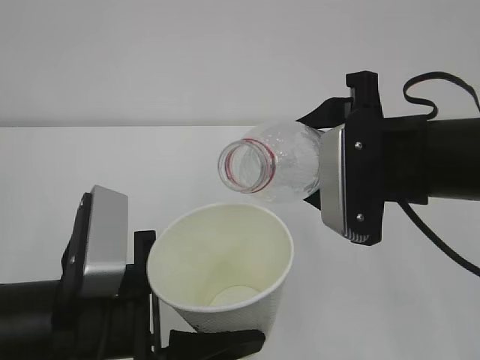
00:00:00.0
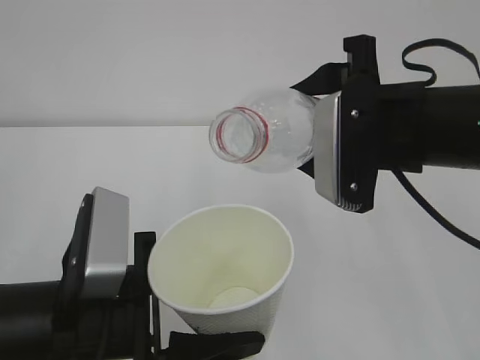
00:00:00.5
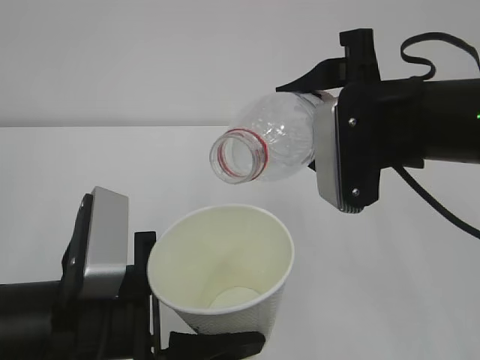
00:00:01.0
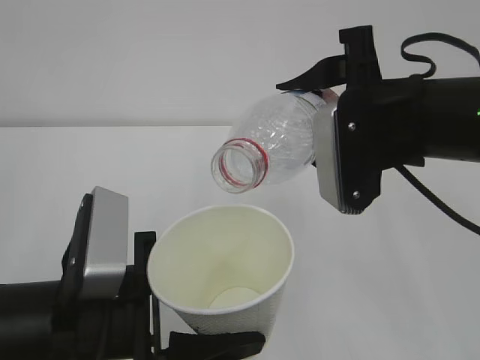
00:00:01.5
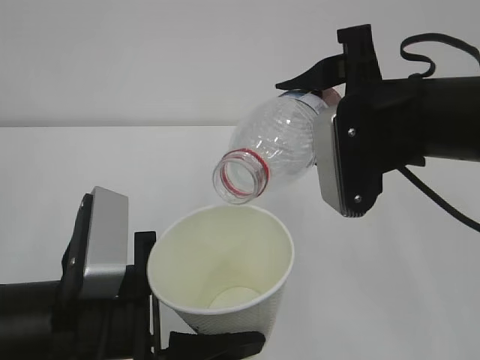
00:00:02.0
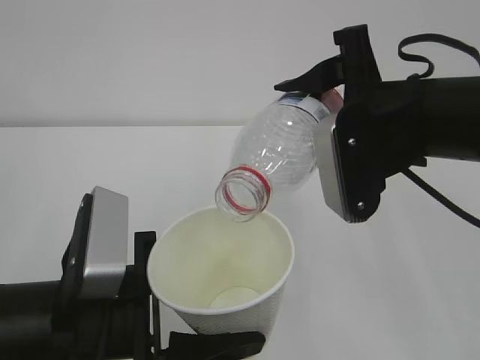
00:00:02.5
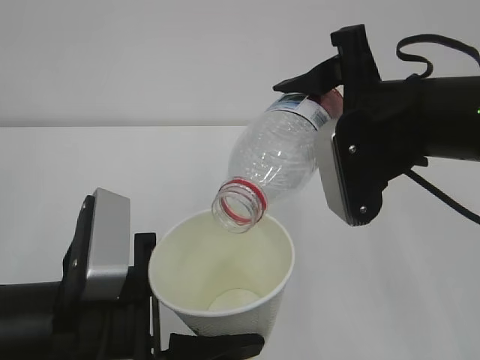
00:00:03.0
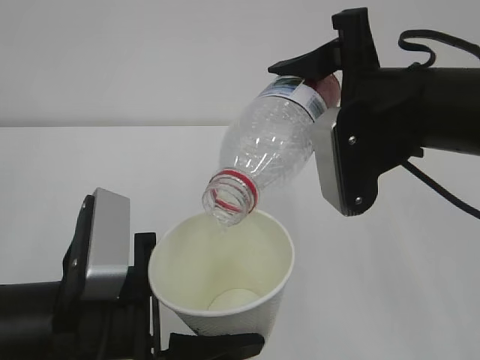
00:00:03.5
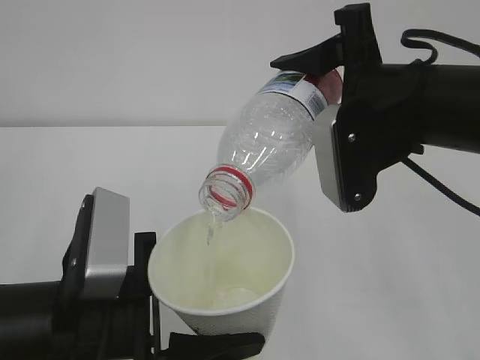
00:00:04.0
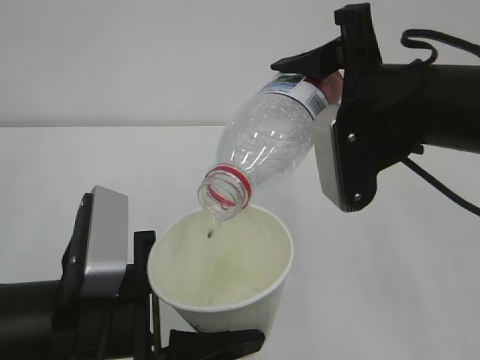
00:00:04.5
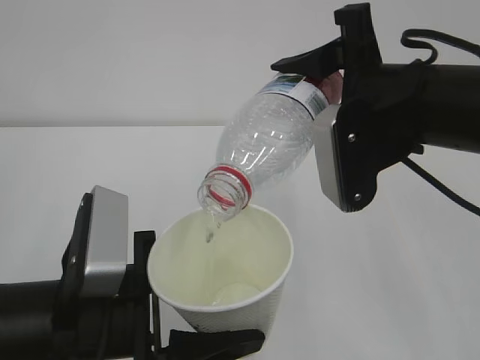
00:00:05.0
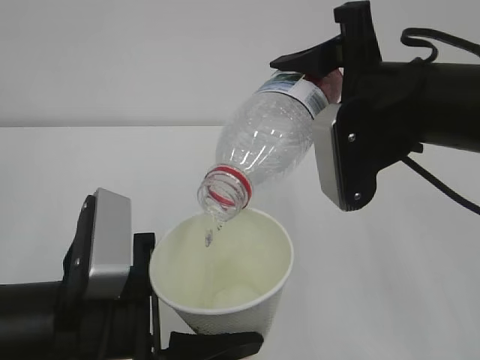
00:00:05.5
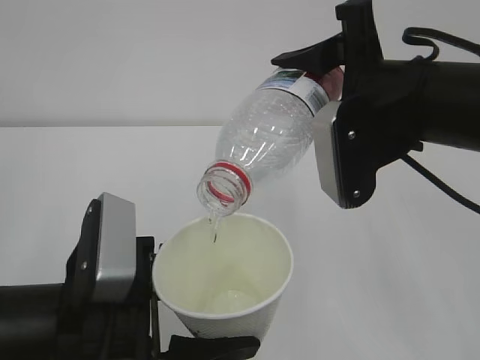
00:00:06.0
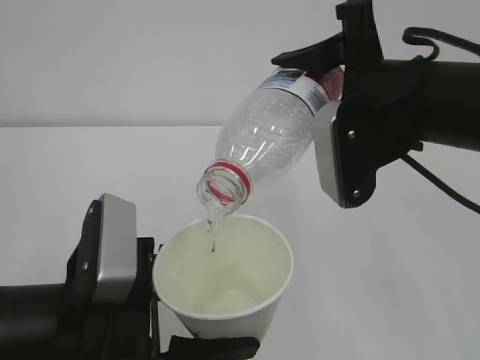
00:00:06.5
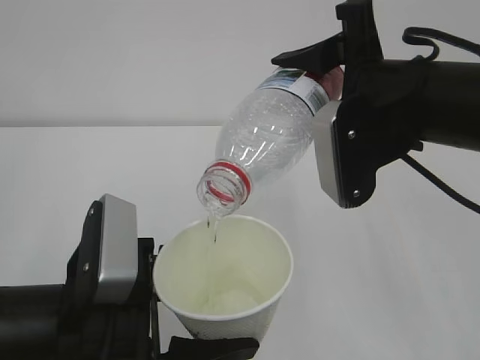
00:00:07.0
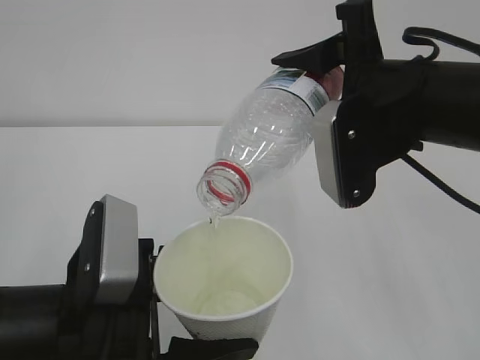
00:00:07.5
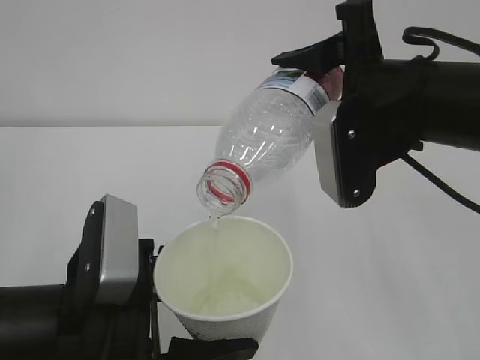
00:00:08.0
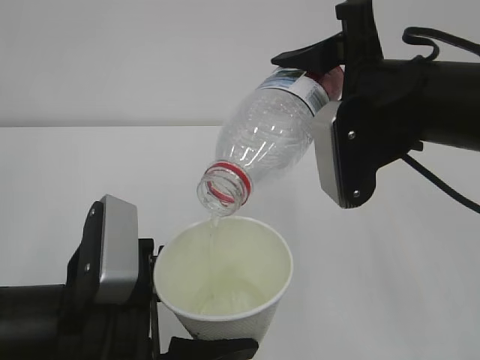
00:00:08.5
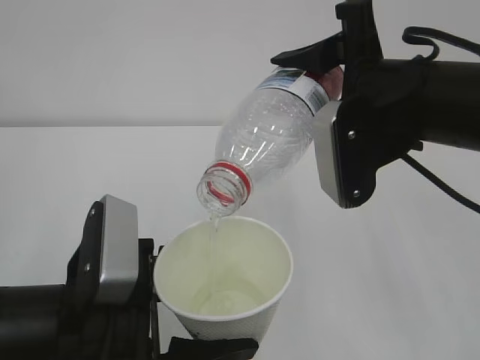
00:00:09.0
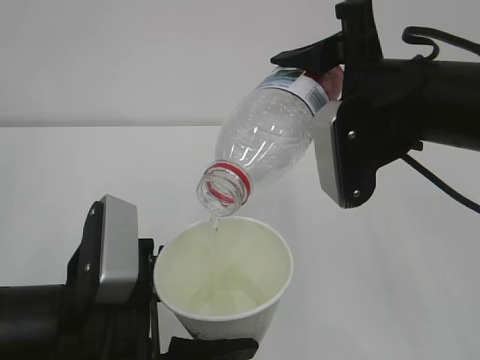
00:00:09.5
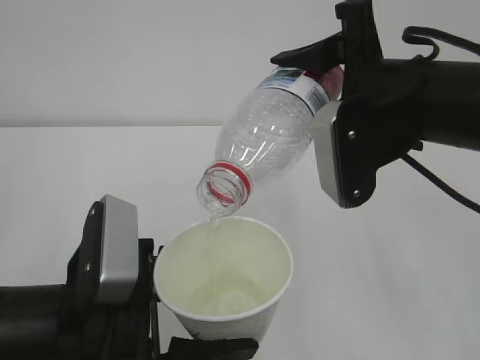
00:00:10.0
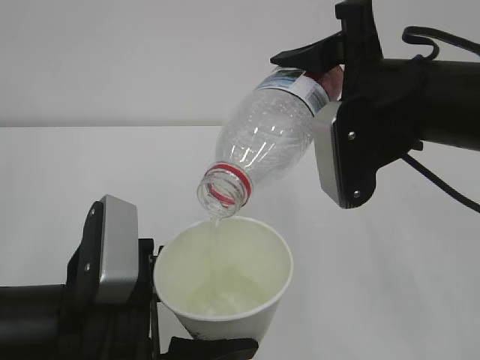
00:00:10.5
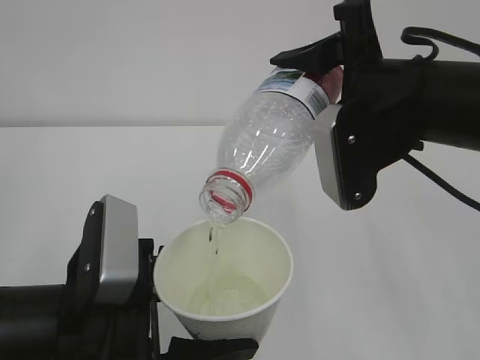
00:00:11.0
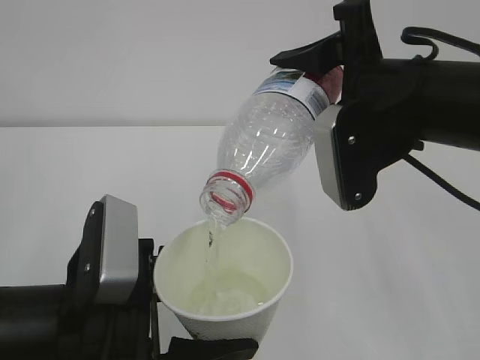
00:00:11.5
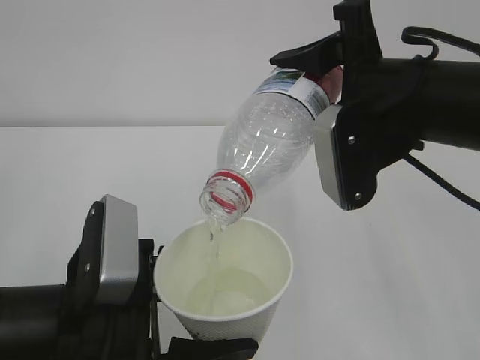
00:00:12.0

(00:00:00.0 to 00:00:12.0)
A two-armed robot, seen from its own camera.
00:00:00.0 - 00:00:02.0: The grippers move only a little.
00:00:02.0 - 00:00:04.0: There are only small adjustments of the grippers.
00:00:04.0 - 00:00:06.0: The right gripper closes.
00:00:06.0 - 00:00:12.0: Neither gripper changes place.

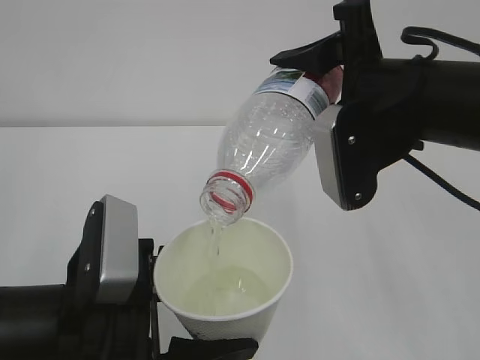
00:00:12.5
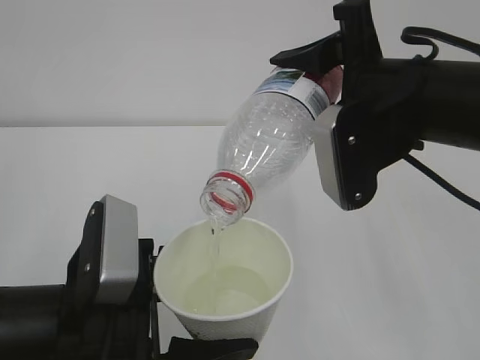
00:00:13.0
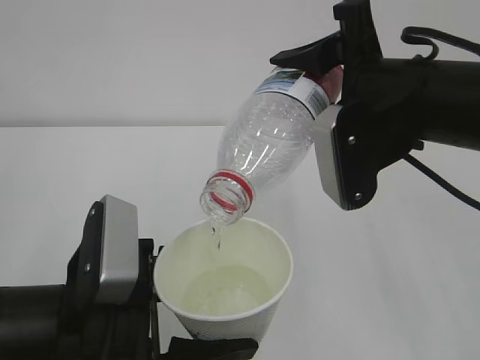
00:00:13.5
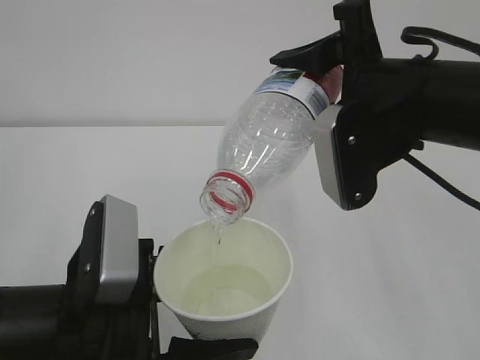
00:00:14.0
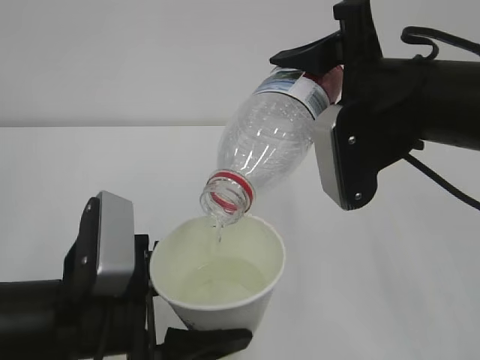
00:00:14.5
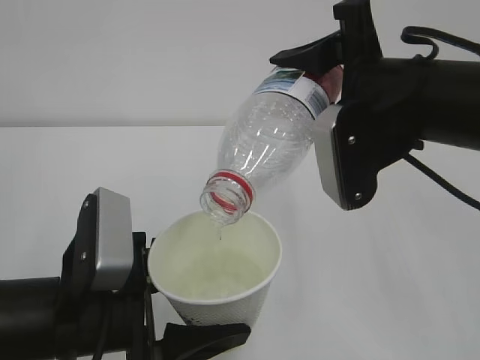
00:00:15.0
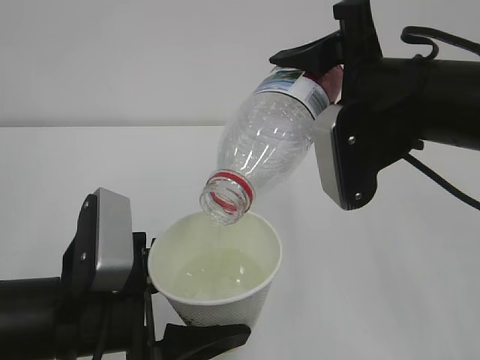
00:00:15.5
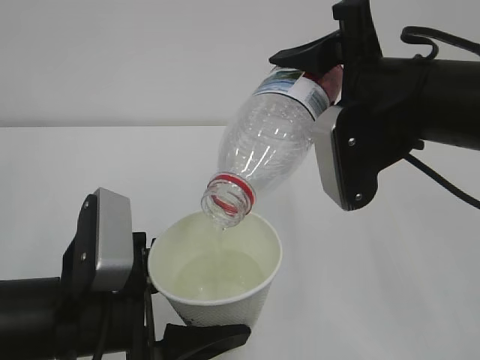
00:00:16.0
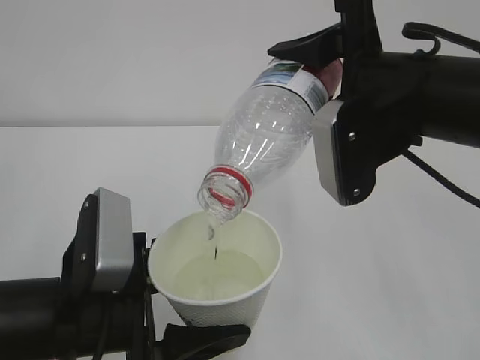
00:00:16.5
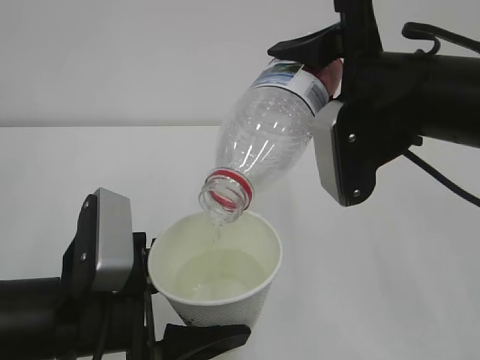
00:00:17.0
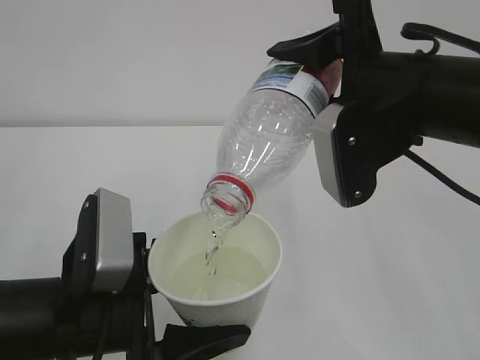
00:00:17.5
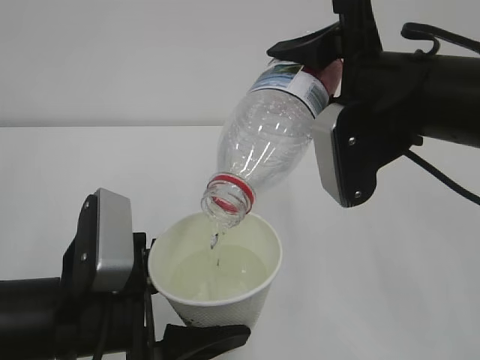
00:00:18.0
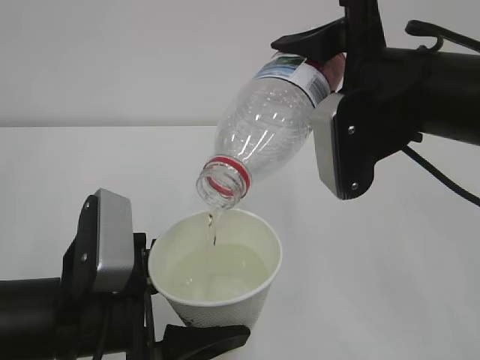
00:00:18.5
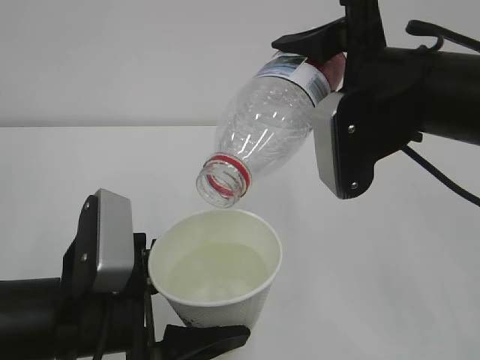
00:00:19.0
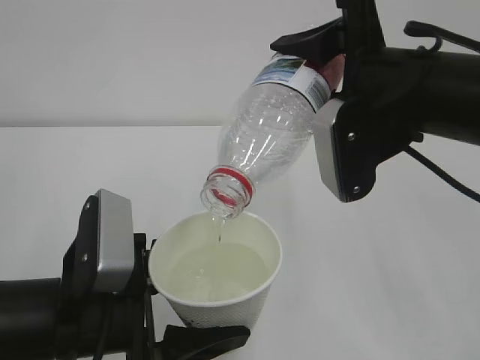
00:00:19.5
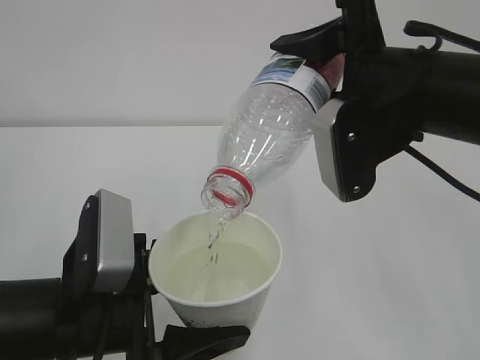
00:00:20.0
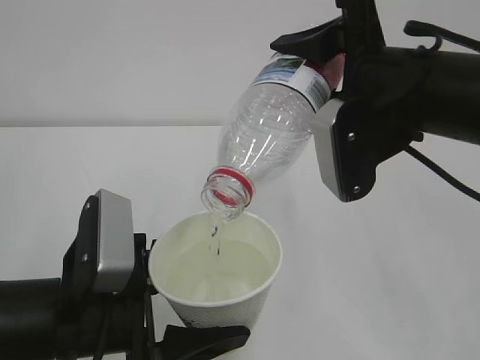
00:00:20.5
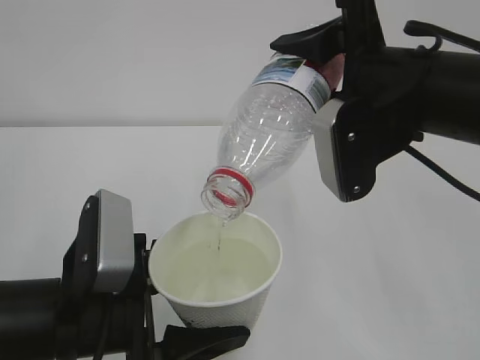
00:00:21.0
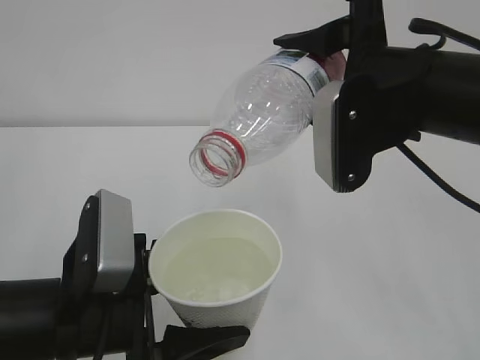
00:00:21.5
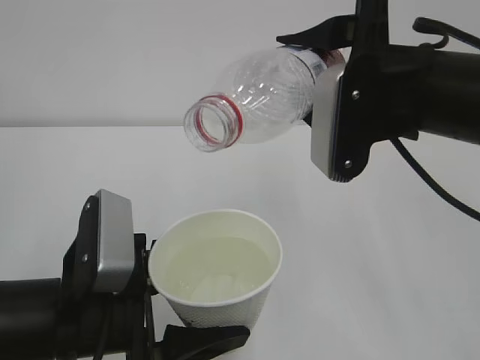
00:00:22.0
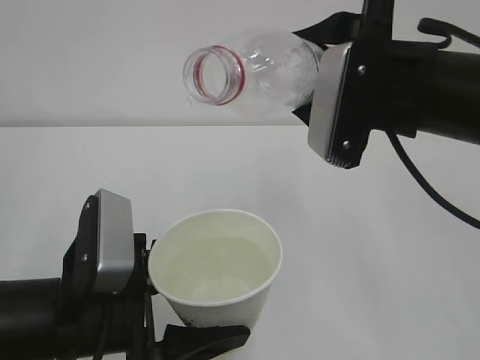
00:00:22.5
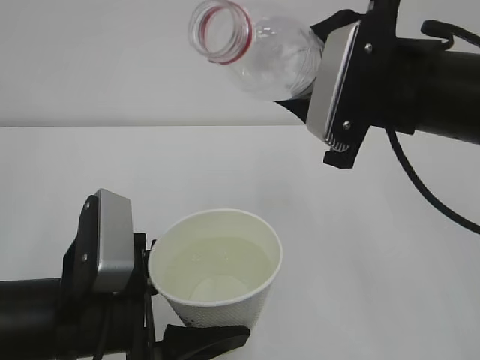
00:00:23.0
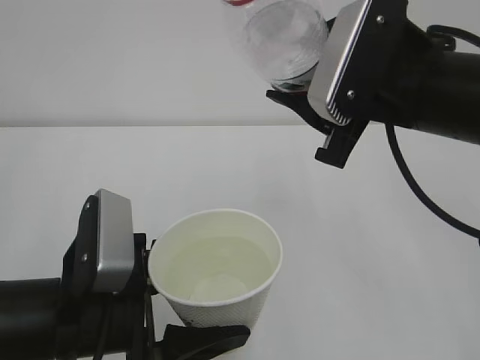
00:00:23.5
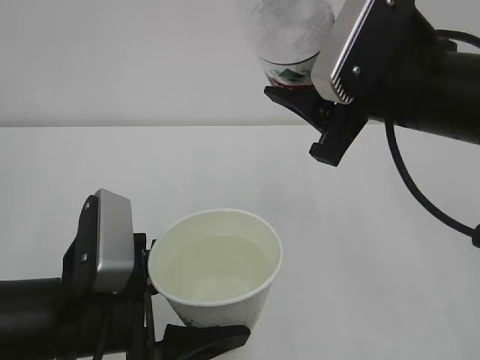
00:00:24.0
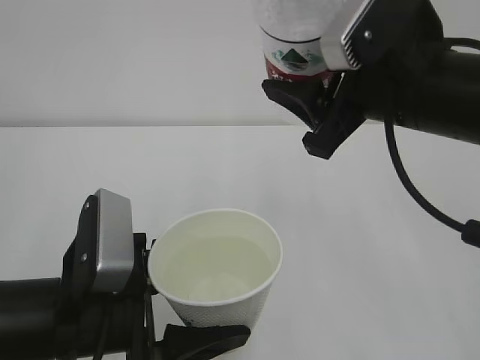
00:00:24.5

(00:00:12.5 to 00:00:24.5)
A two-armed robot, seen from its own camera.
00:00:12.5 - 00:00:20.5: Both grippers stay put.

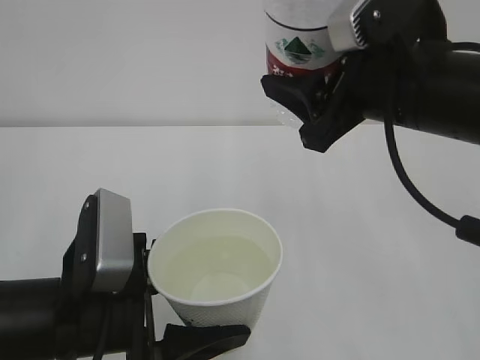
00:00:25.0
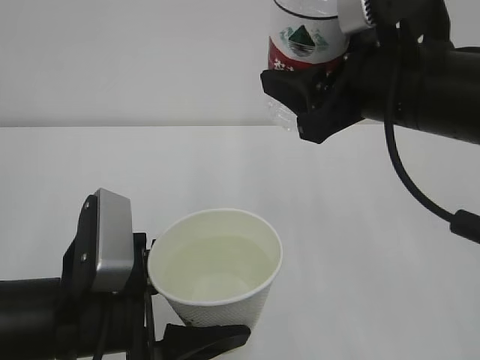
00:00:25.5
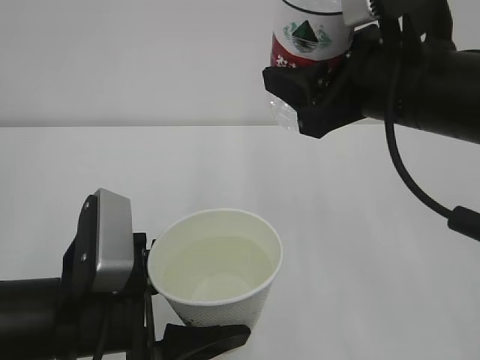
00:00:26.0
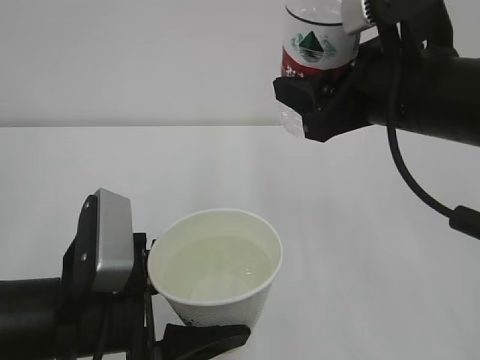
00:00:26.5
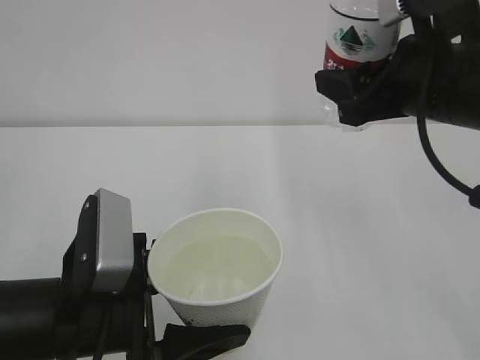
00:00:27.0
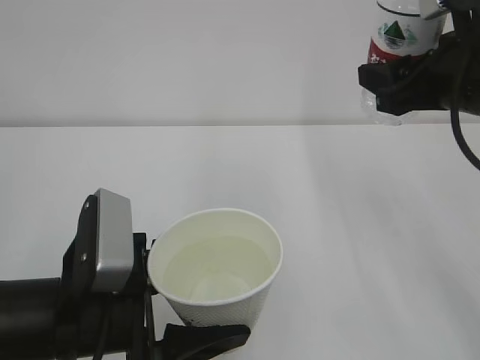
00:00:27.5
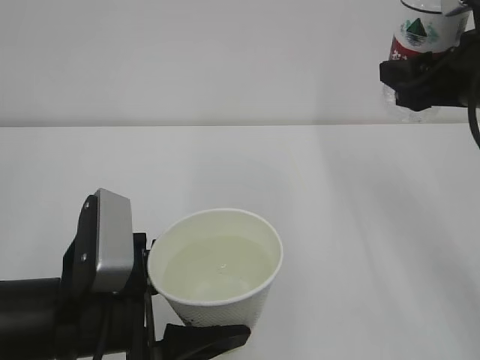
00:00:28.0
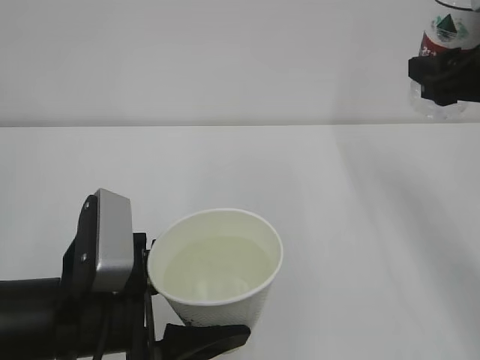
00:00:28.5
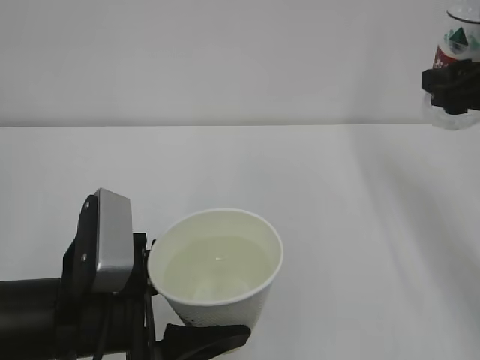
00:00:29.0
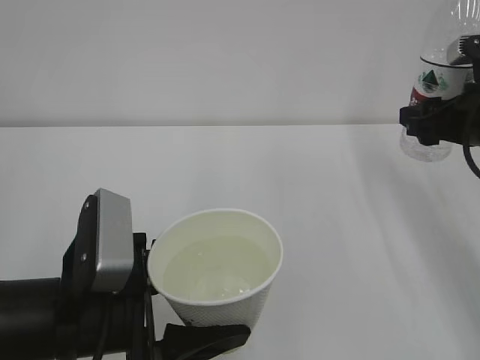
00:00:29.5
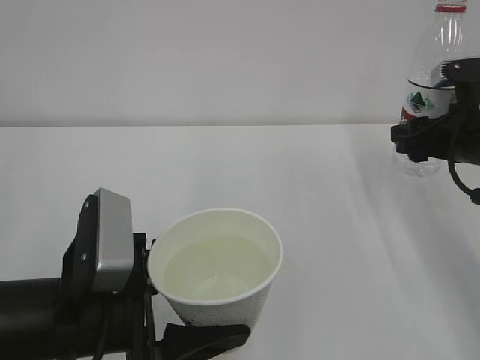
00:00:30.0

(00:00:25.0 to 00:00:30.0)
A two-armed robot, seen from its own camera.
00:00:25.0 - 00:00:27.5: The right gripper shifts some 10 cm to the right.
00:00:27.5 - 00:00:30.0: The right gripper shifts approximately 10 cm downward and to the right.
